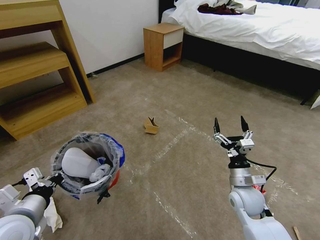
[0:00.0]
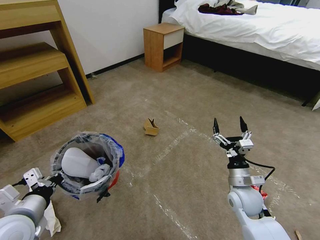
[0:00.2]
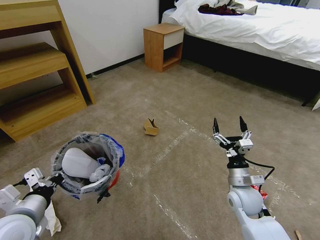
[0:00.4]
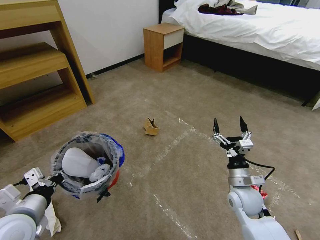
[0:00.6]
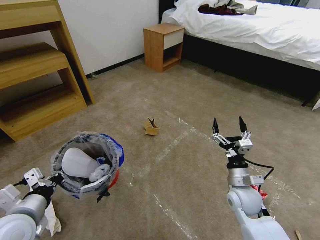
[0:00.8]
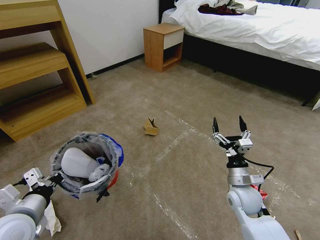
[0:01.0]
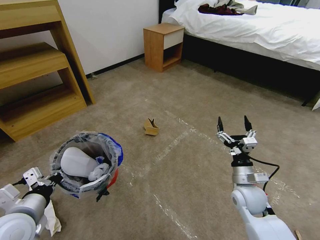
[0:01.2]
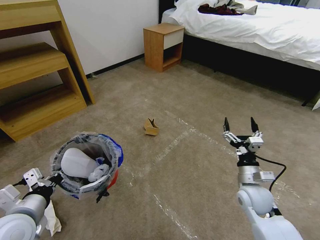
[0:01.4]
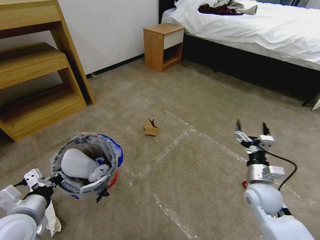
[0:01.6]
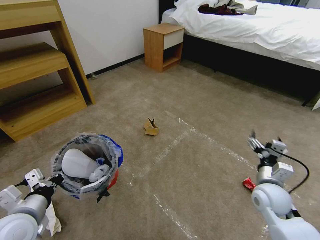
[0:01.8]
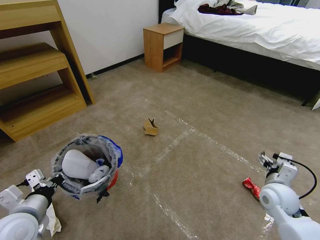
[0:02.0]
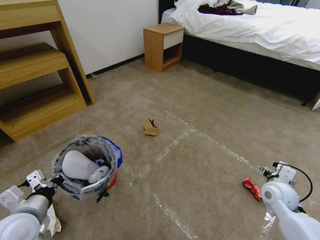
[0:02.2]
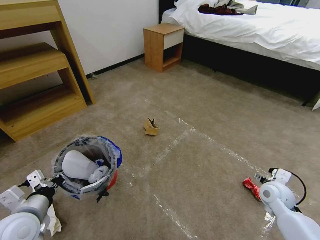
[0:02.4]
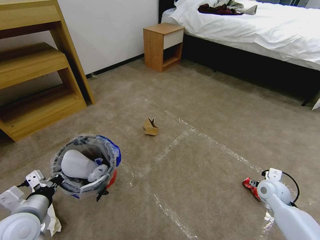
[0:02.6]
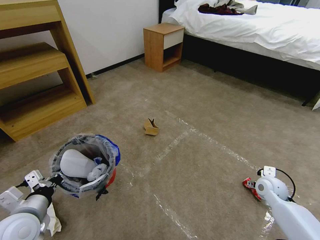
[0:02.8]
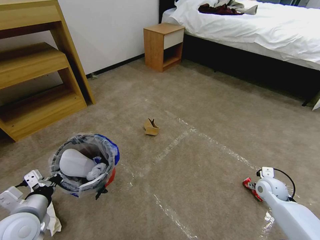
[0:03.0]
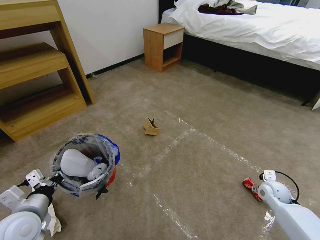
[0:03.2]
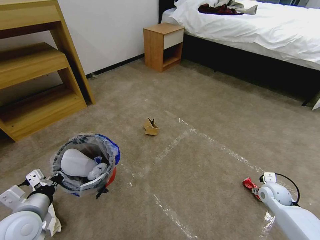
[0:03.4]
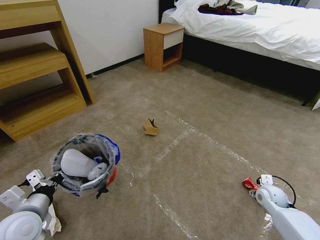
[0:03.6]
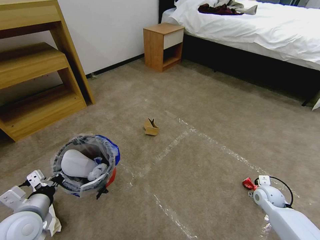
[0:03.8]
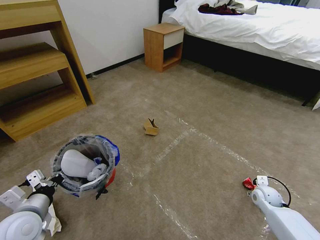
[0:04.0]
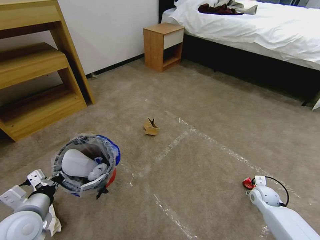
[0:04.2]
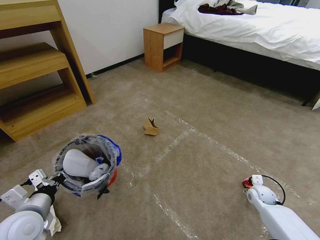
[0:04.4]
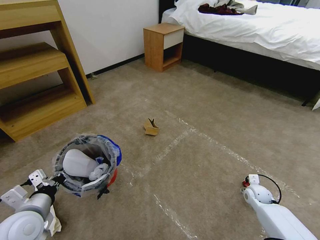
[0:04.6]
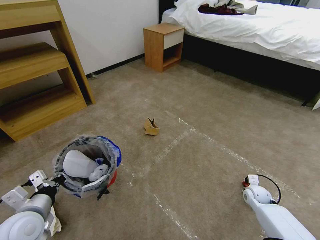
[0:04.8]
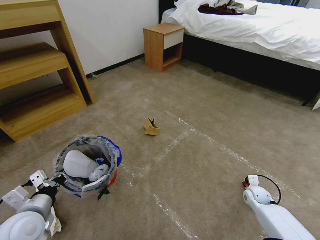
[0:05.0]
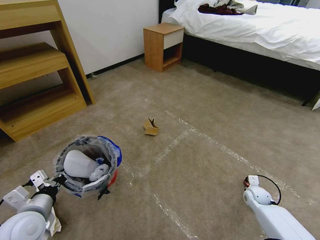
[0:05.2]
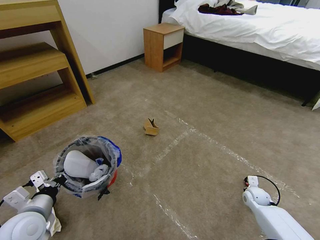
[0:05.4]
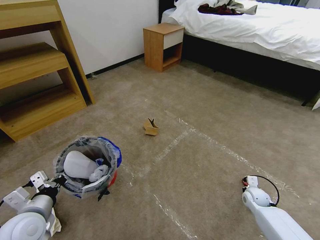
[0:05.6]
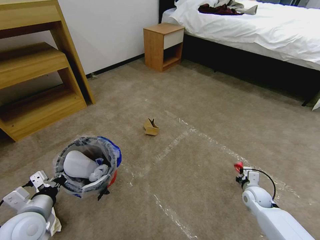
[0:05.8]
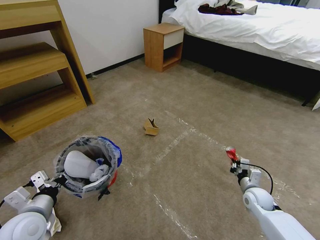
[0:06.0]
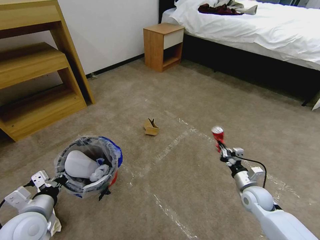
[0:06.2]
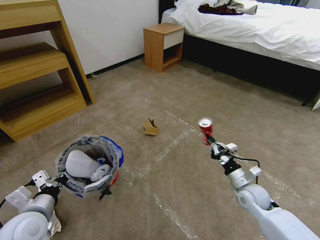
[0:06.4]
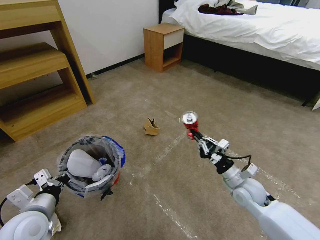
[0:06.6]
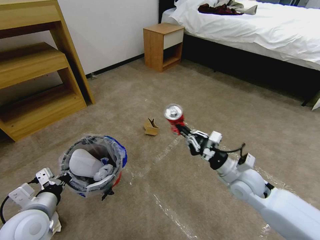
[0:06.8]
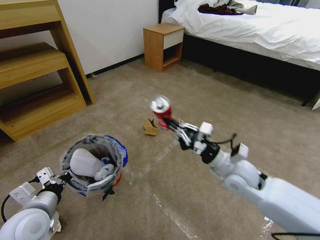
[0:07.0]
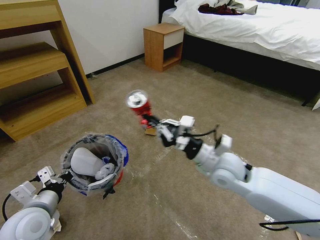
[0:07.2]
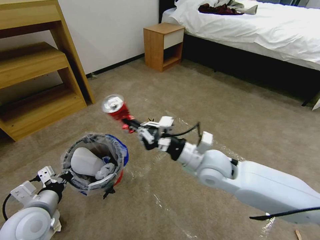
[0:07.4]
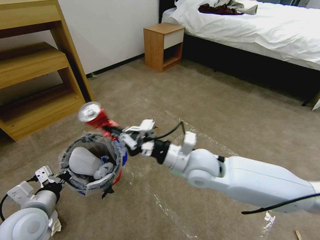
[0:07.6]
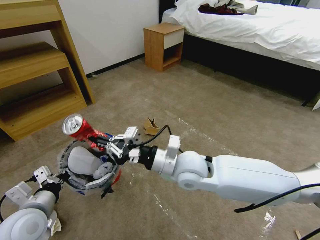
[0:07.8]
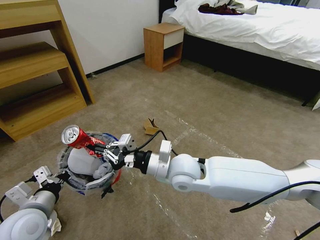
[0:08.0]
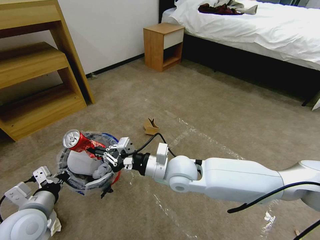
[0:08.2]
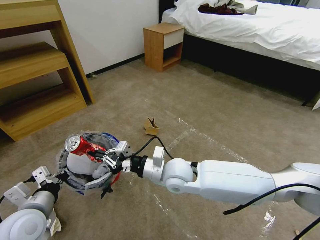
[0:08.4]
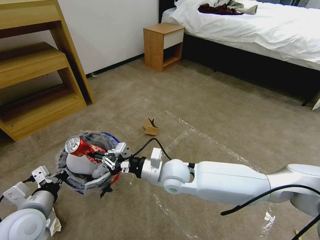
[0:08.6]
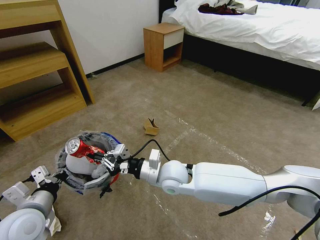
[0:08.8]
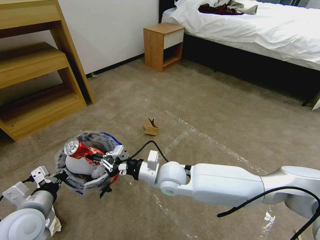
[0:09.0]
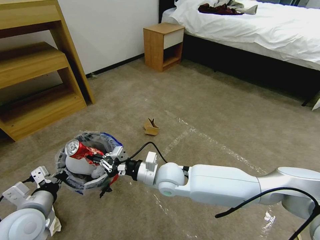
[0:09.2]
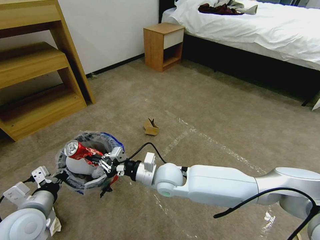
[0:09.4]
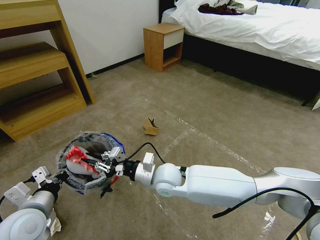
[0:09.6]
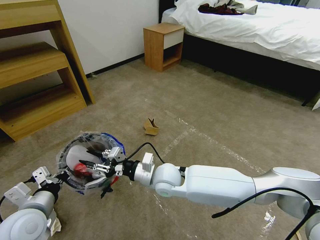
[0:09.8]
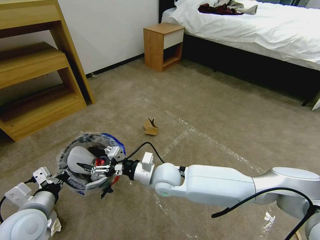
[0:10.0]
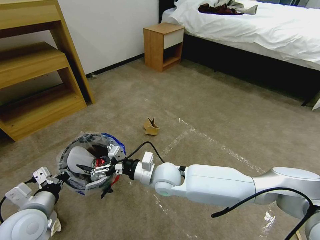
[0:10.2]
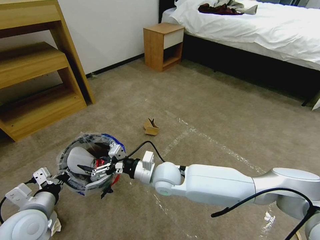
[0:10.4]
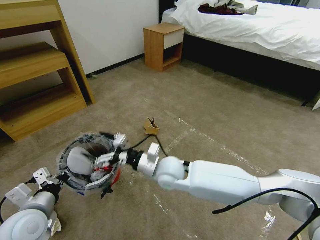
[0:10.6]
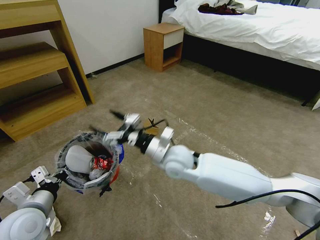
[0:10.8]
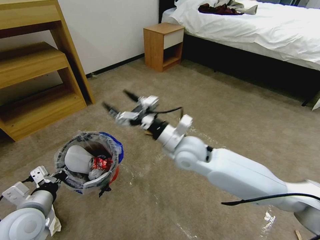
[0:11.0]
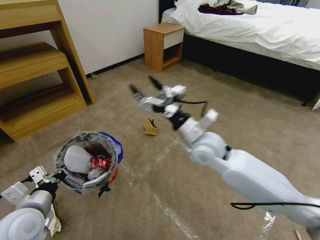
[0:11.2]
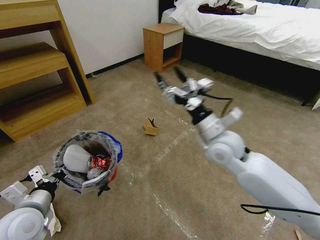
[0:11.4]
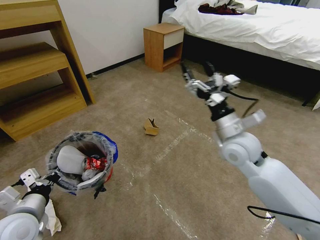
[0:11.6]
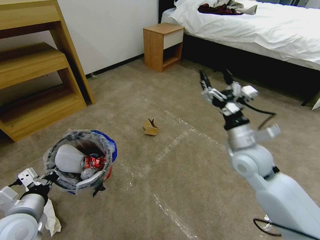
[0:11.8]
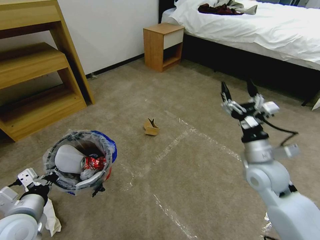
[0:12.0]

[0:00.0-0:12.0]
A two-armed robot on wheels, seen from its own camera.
Task of the whole recording: Pick up the trash bin and place the garbage on the floor into it.
0:00.0 to 0:01.6: There are only small adjustments of the grippers.
0:01.6 to 0:03.0: The right gripper is displaced to the right, downward and forward by some 15 cm.
0:03.0 to 0:04.4: The right gripper is displaced downward by roughly 10 cm.
0:04.4 to 0:06.0: The right gripper moves some 5 cm, and closes its fingers.
0:06.0 to 0:07.6: The right gripper is displaced to the left and upward by approximately 40 cm.
0:07.6 to 0:09.0: The right gripper is displaced downward and to the left by roughly 10 cm.
0:09.0 to 0:10.4: The right gripper opens its fingers.
0:10.4 to 0:12.0: The right gripper travels to the right by about 25 cm.

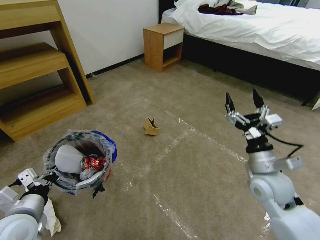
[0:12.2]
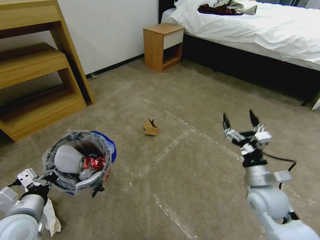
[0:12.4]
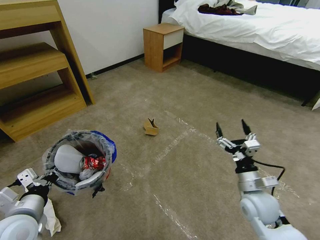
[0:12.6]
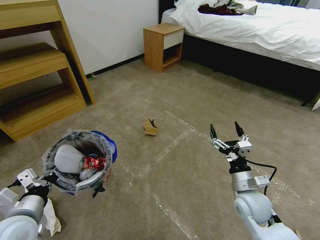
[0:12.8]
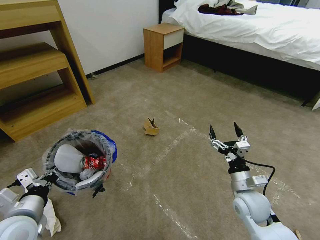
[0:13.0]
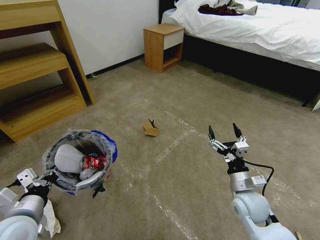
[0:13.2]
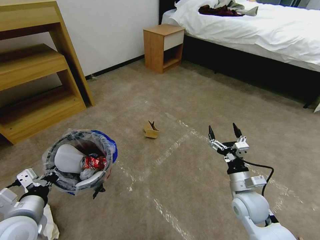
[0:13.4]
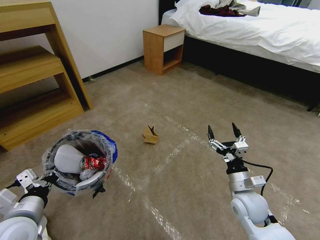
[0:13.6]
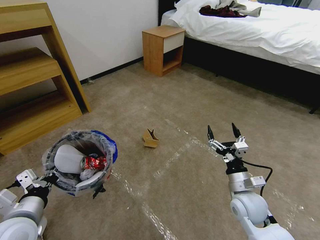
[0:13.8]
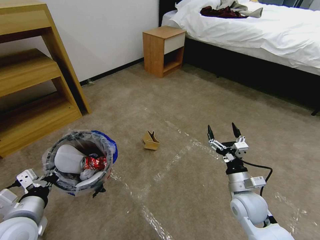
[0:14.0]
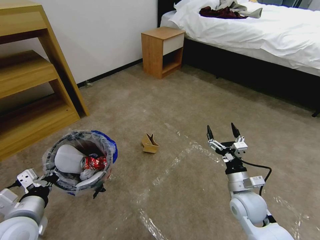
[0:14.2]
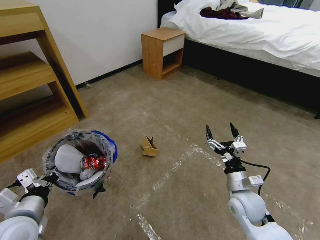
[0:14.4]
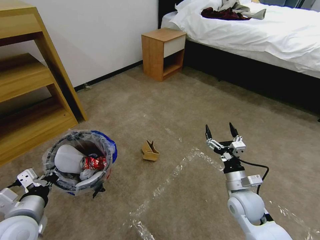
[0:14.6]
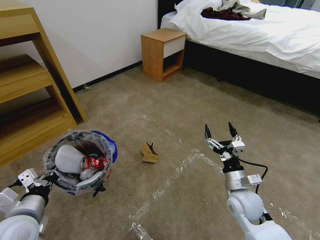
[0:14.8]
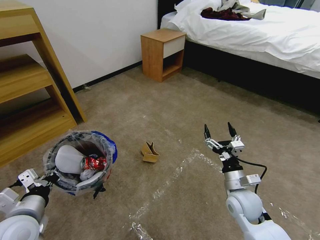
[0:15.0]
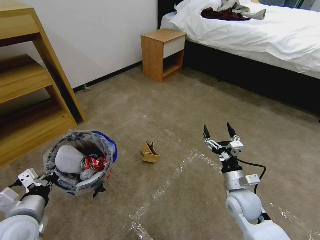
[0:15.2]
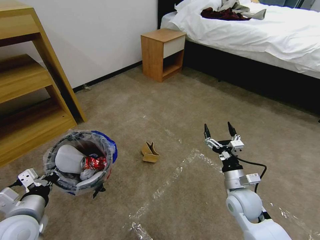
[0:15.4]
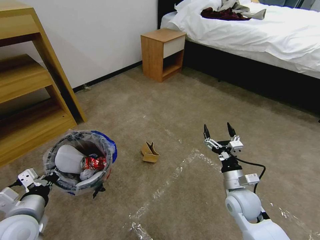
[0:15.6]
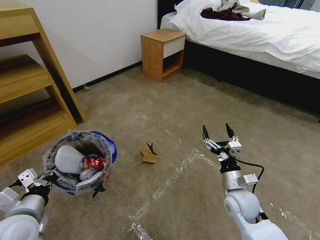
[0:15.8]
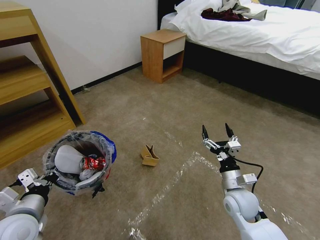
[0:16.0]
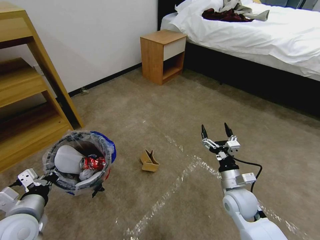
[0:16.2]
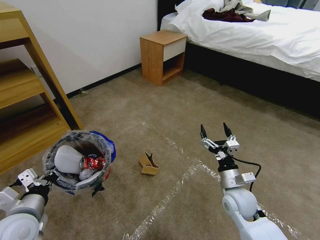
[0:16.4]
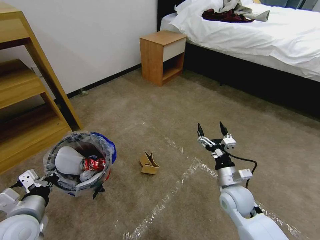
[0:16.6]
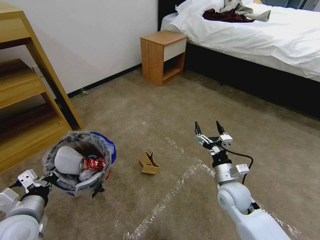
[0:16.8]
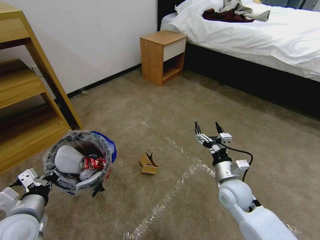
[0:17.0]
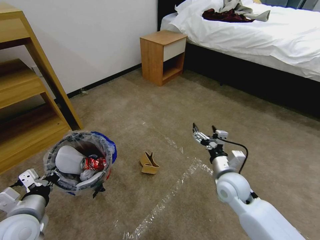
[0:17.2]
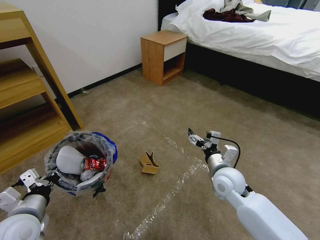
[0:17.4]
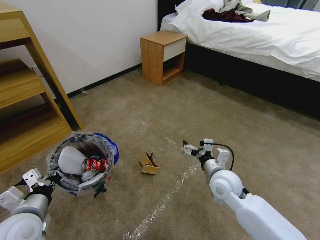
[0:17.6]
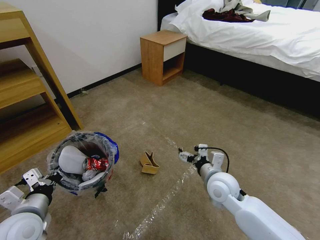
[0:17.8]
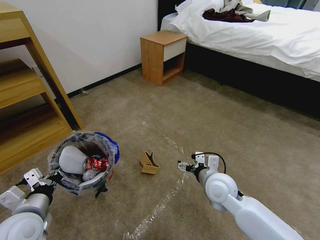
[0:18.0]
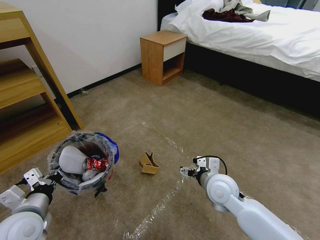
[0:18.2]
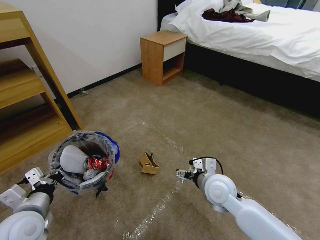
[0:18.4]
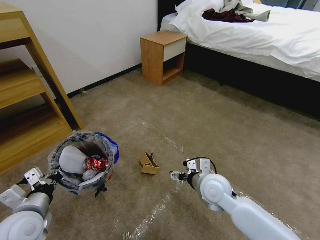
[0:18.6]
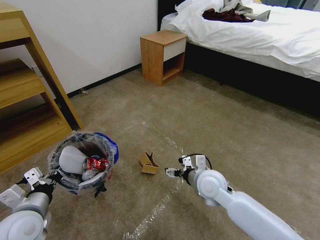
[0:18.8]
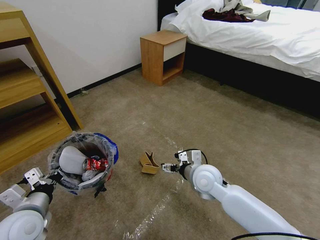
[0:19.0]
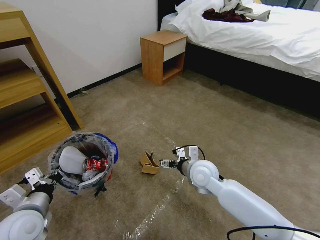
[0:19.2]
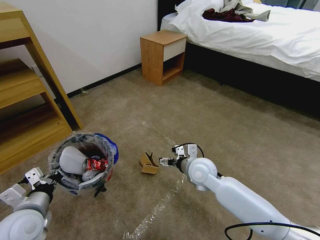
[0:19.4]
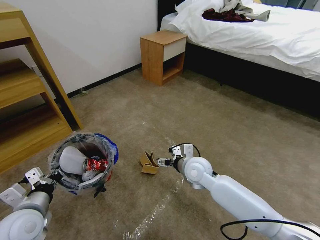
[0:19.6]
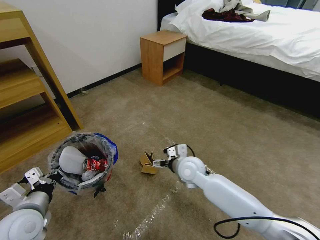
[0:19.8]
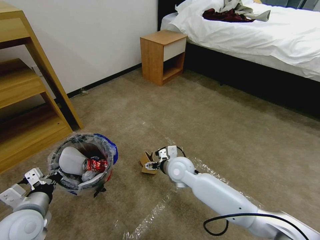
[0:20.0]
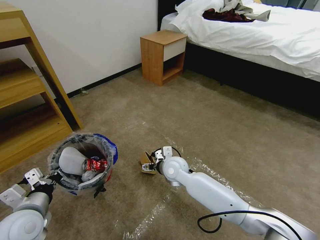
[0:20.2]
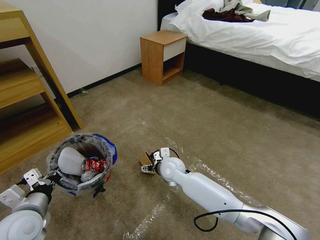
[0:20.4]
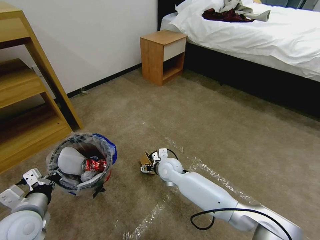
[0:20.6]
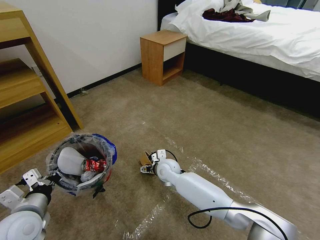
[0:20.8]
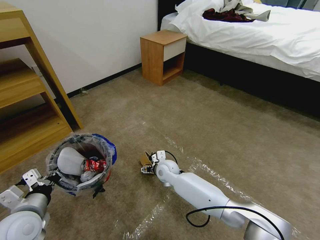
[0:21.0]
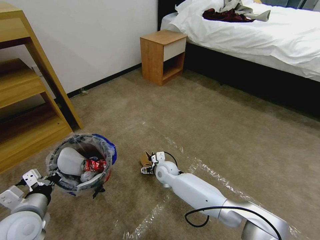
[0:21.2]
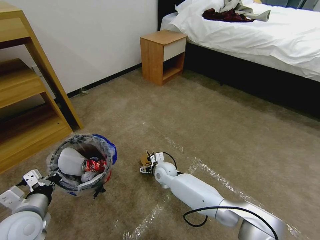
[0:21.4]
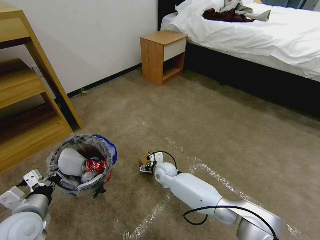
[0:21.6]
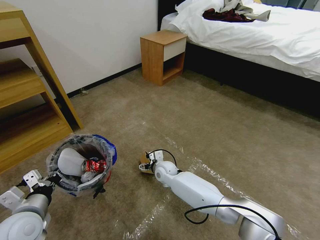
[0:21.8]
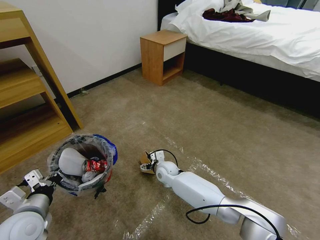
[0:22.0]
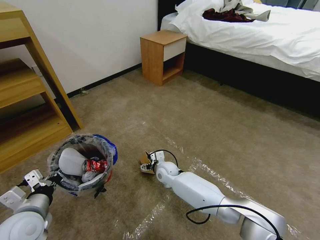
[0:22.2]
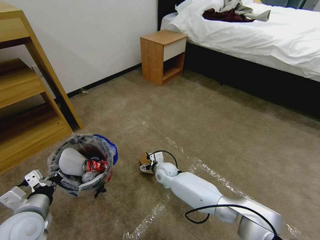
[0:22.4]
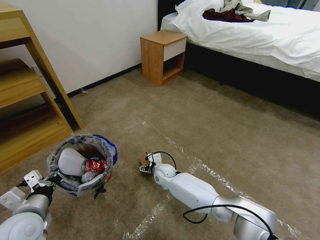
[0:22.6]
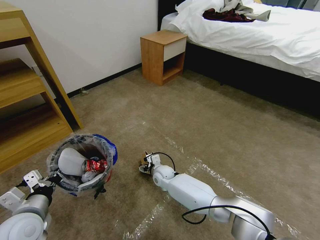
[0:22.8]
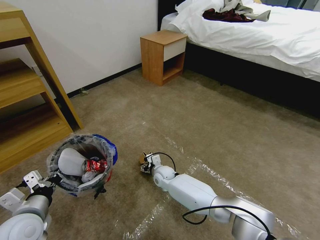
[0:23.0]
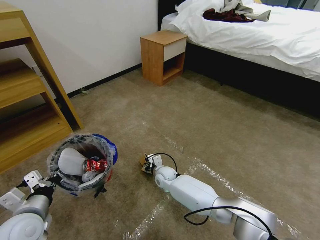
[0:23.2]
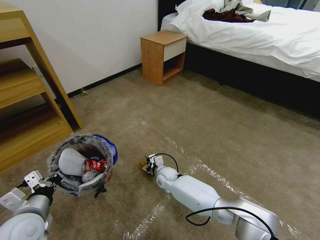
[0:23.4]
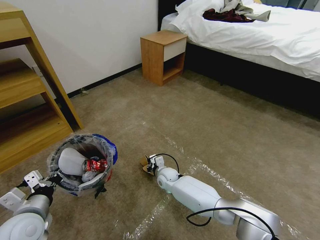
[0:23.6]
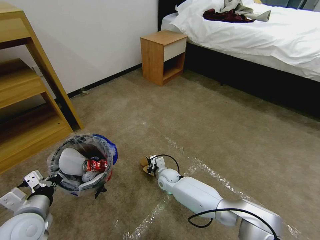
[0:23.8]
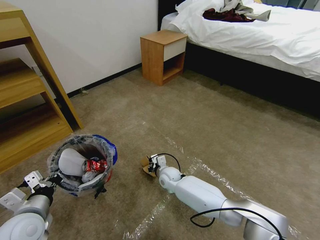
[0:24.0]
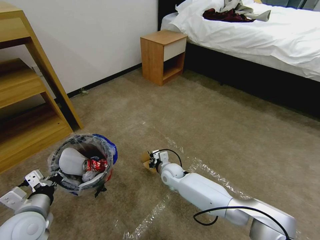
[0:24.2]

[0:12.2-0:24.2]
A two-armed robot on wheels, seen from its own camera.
Task of the whole recording: Pick up the trash bin and place the garbage on the floor into it.
0:12.2 to 0:13.8: The right gripper travels downward by approximately 10 cm.
0:15.2 to 0:16.6: The grippers stay close to where they were, moving slightly.
0:16.6 to 0:18.2: The right gripper moves to the left, about 5 cm.
0:18.2 to 0:19.8: The right gripper heads to the left and forward, covering approximately 10 cm.
0:19.8 to 0:21.2: The right gripper goes some 15 cm downward and to the left.
0:21.2 to 0:22.6: The grippers move only a little.
0:22.6 to 0:24.2: The right gripper closes its fingers.
